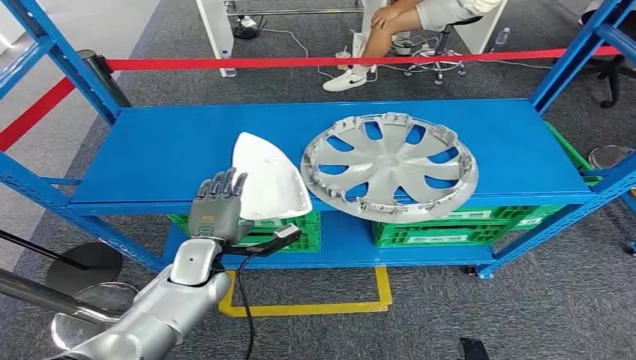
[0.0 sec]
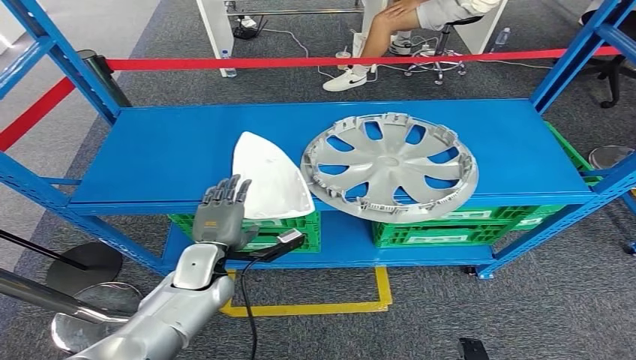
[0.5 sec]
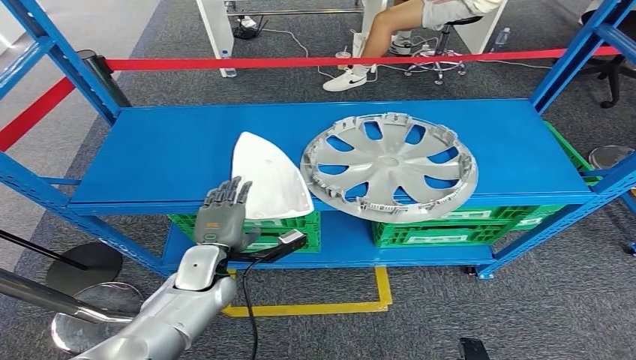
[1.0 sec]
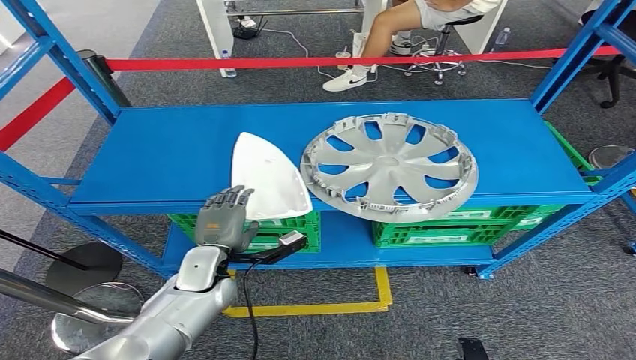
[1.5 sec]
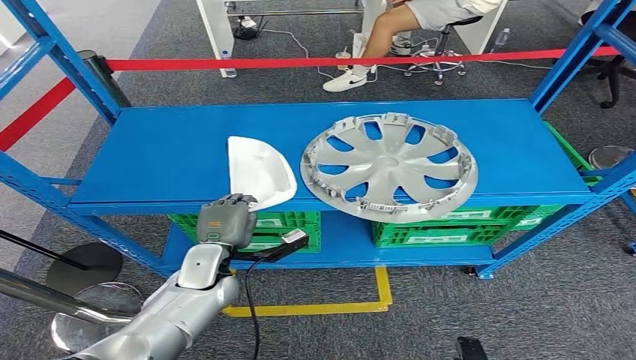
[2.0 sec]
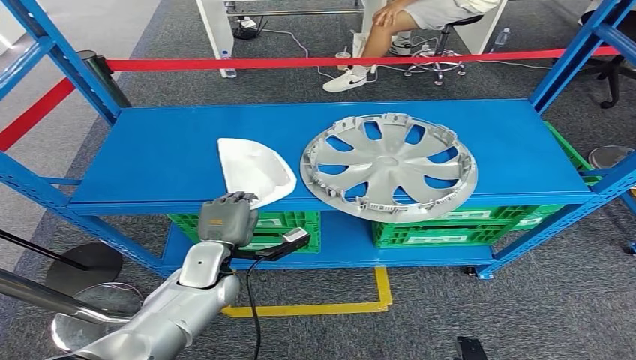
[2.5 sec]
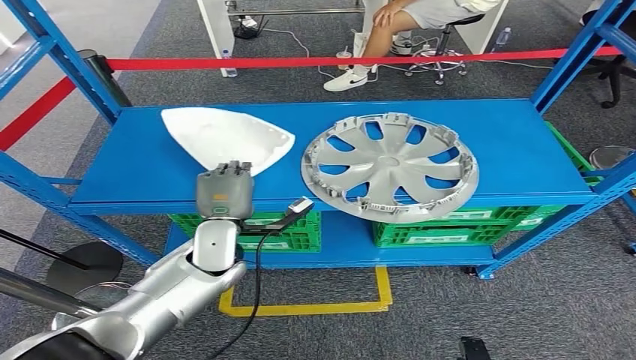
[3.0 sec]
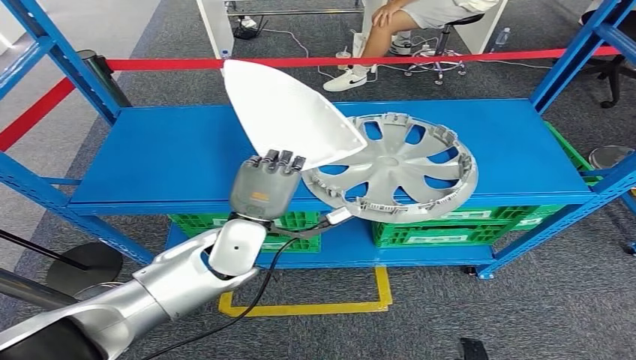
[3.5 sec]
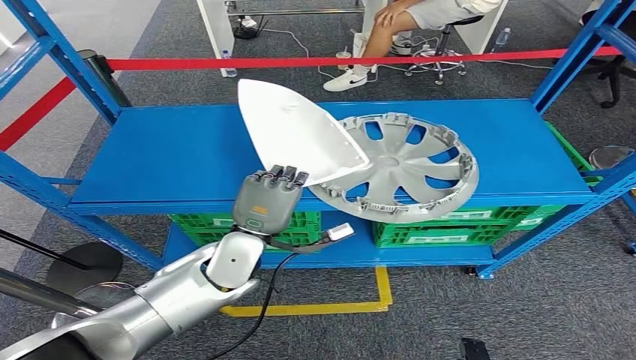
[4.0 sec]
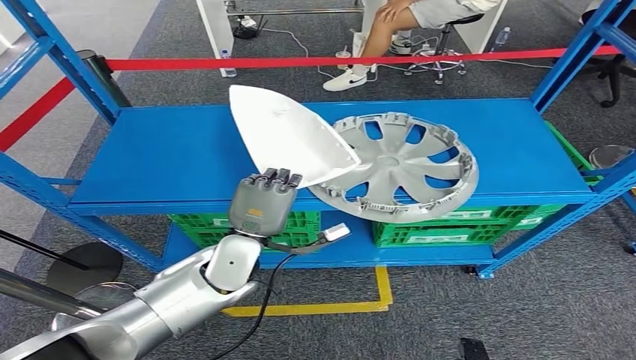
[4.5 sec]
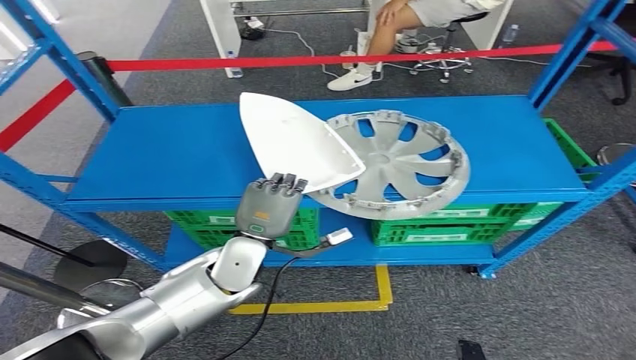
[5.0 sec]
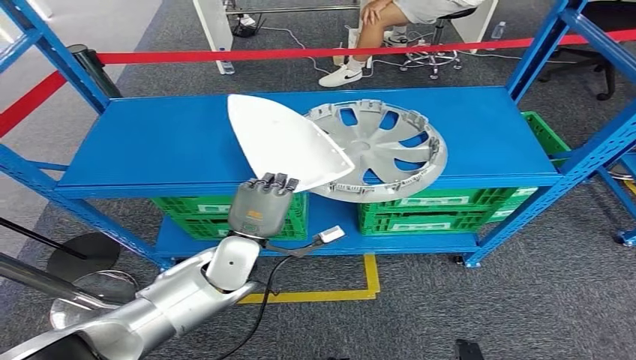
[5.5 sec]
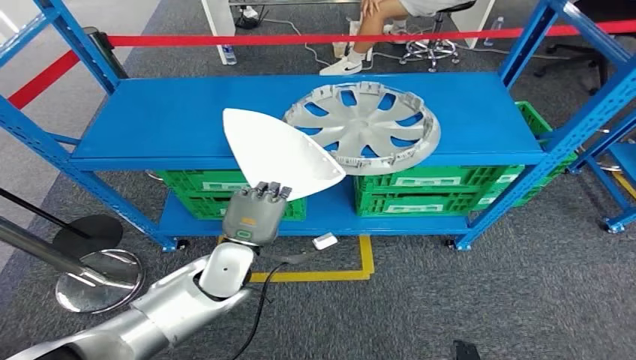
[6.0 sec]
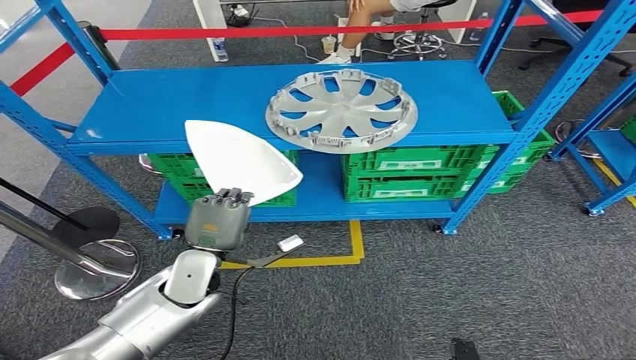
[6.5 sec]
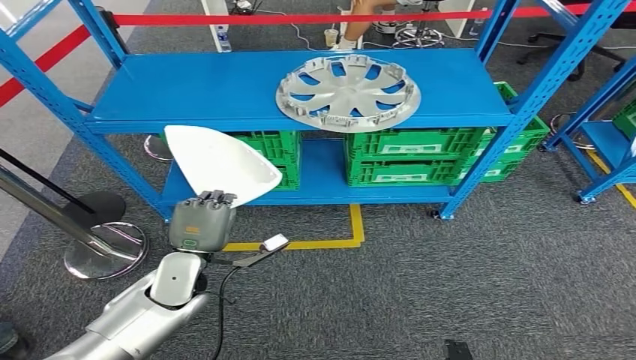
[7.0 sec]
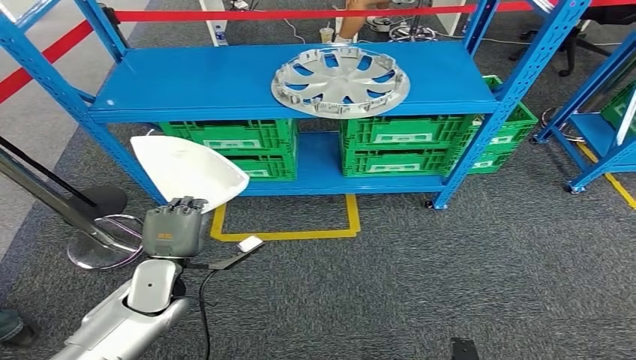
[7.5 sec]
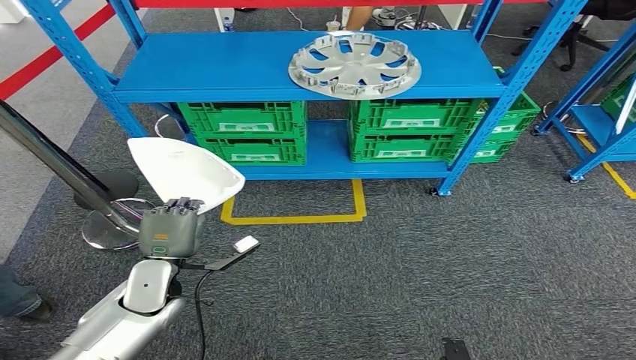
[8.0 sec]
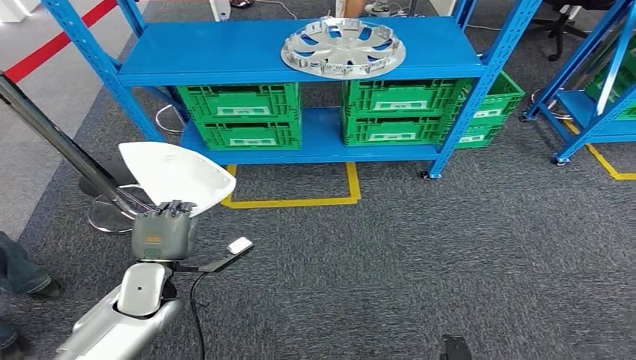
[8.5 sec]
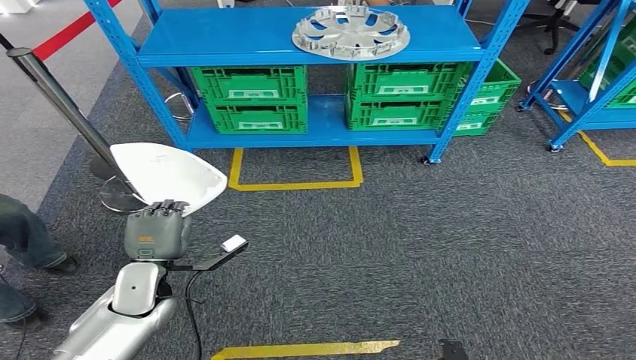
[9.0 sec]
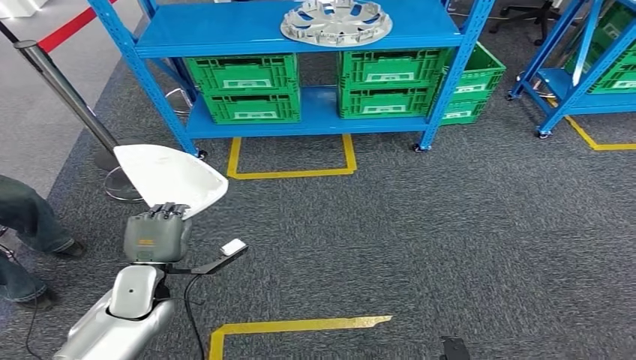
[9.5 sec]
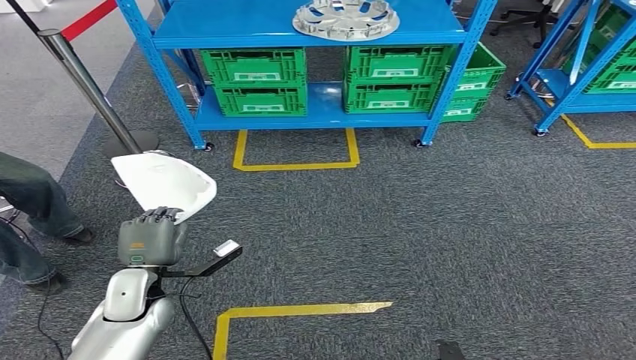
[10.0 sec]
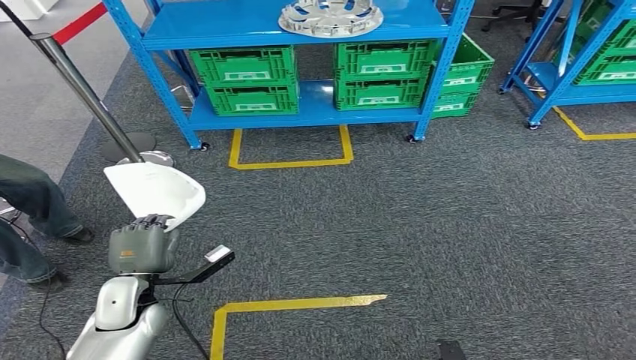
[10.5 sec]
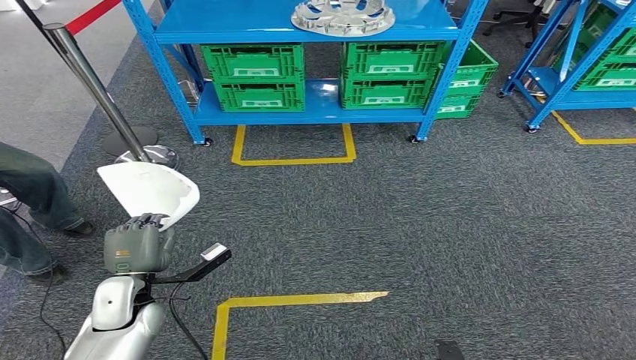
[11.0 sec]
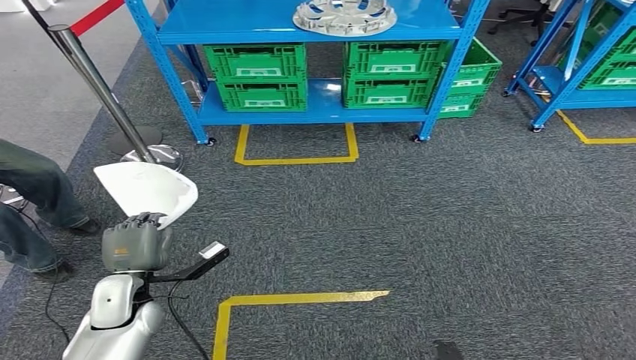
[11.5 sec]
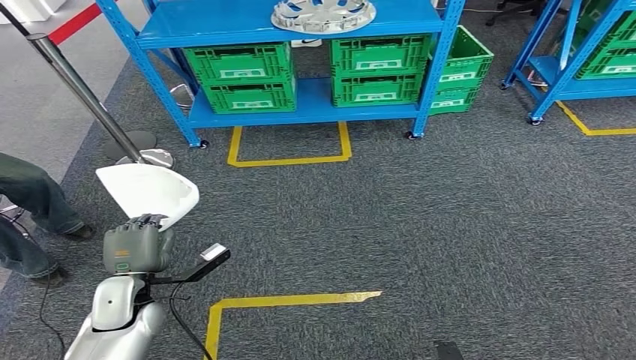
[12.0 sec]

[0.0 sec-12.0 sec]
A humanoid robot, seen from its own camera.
Step, 0.0 sec to 5.0 sec: Pick up the small component from the shelf.
2.0 sec to 4.0 sec: The left hand shifts approximately 10 cm upward and to the right.

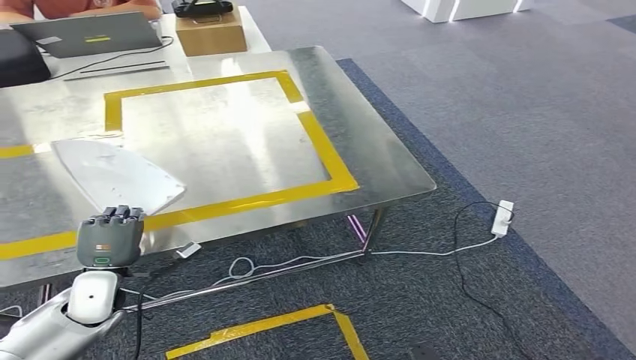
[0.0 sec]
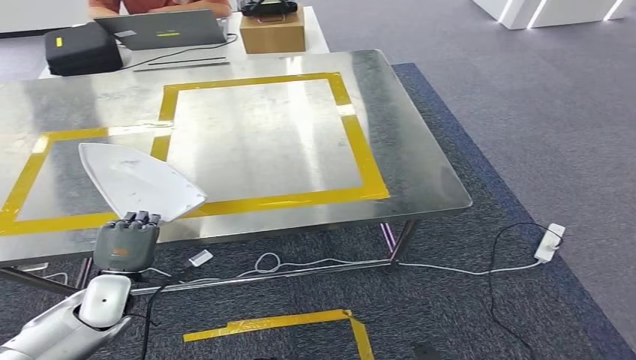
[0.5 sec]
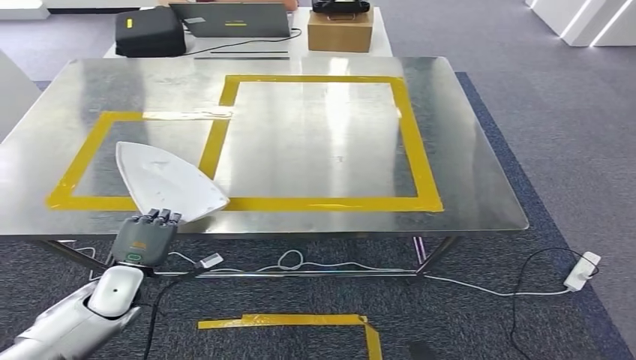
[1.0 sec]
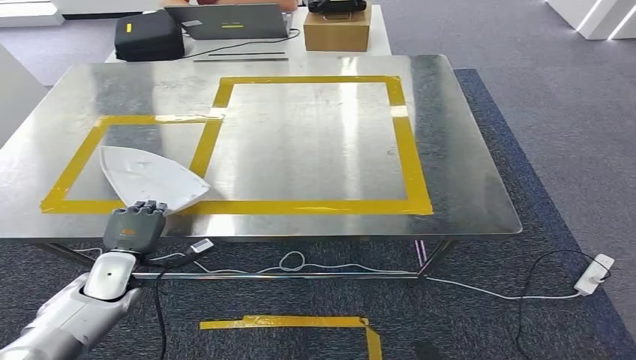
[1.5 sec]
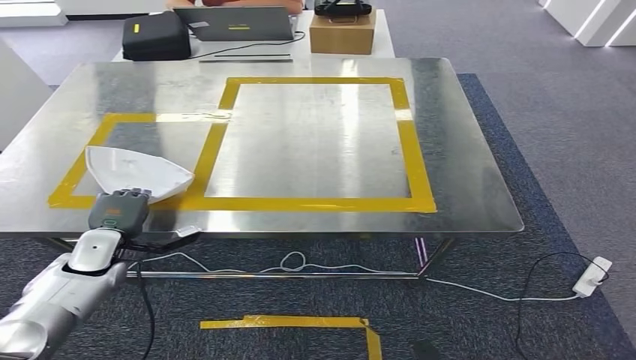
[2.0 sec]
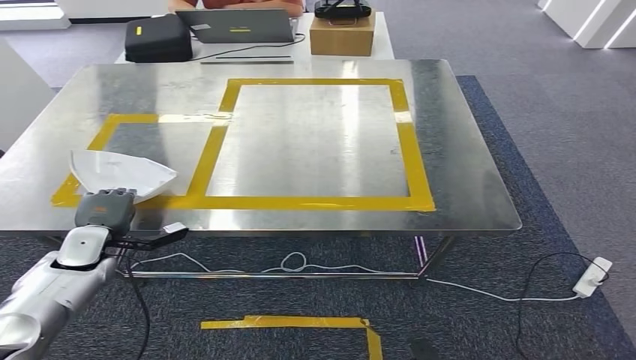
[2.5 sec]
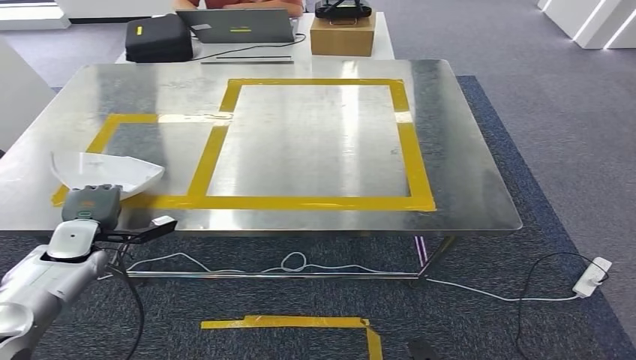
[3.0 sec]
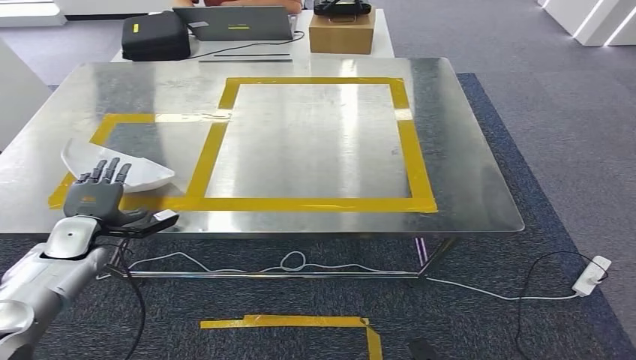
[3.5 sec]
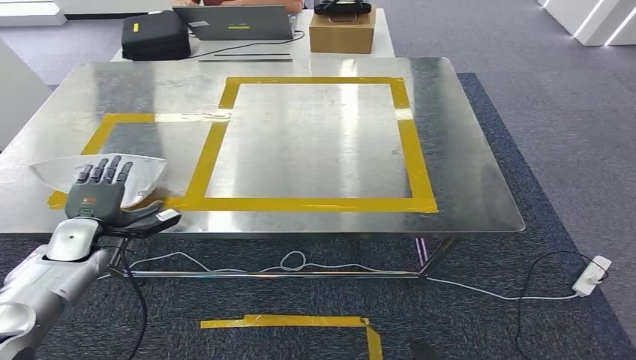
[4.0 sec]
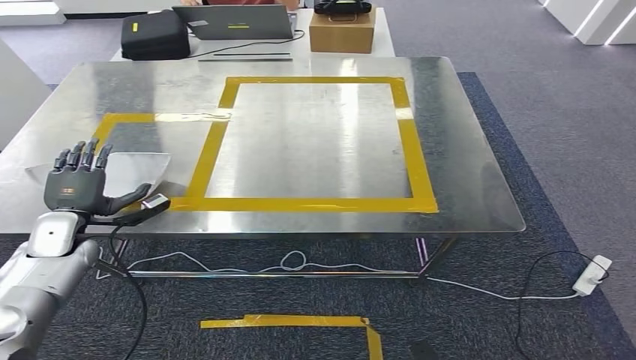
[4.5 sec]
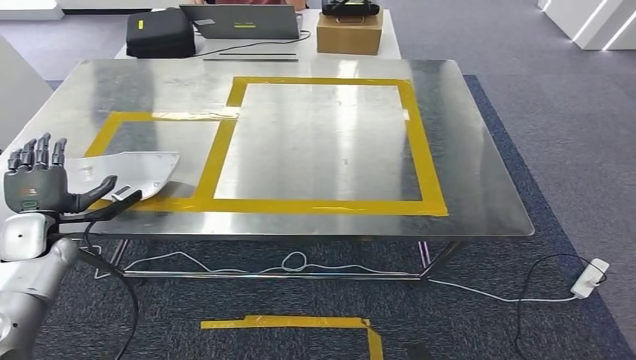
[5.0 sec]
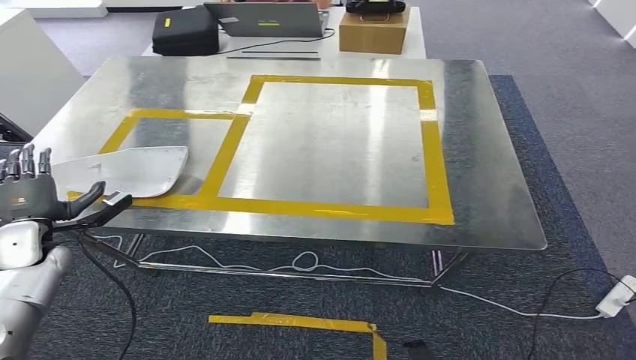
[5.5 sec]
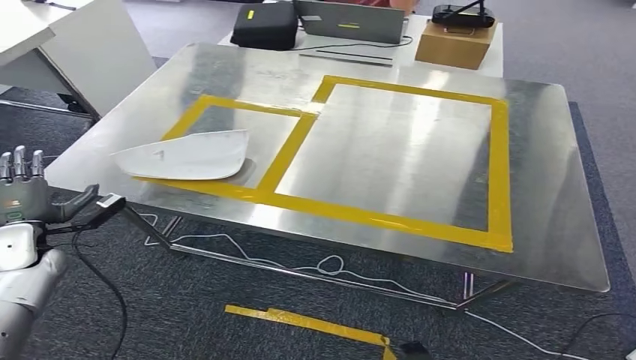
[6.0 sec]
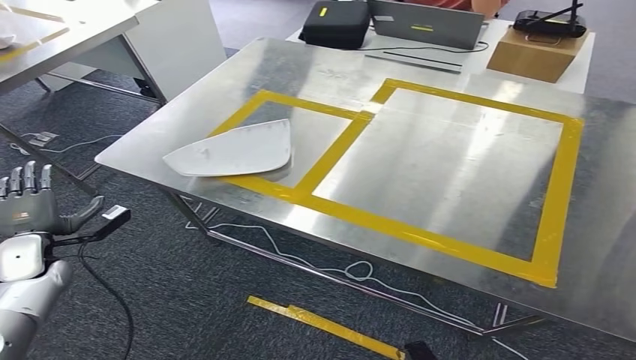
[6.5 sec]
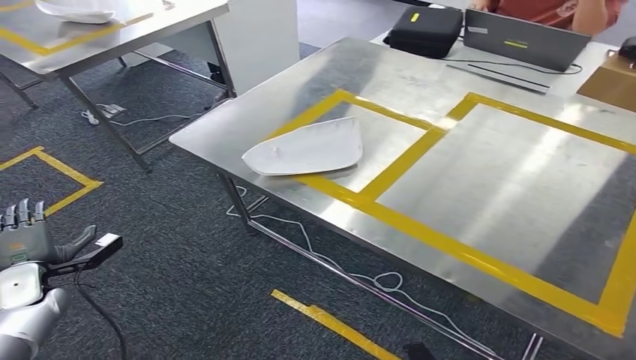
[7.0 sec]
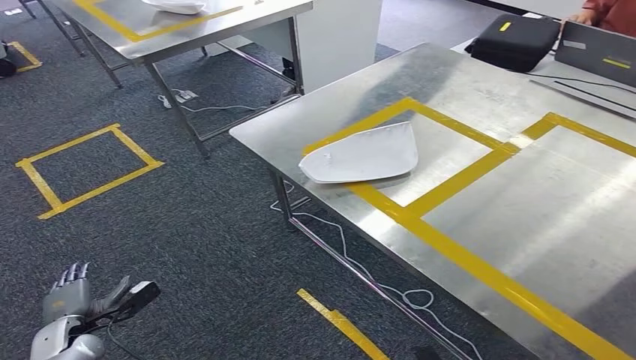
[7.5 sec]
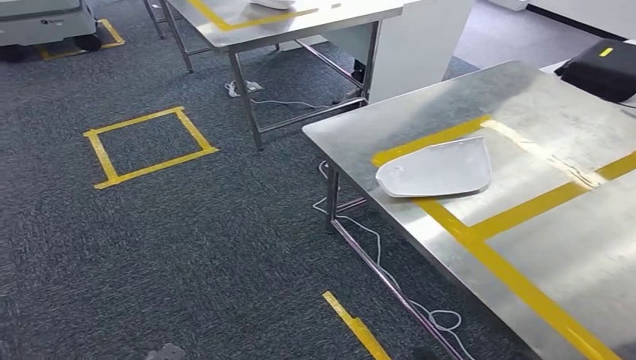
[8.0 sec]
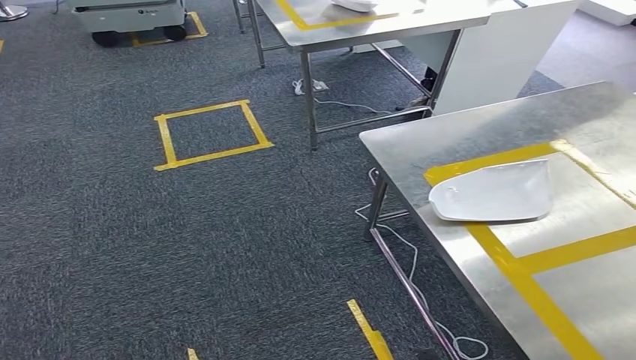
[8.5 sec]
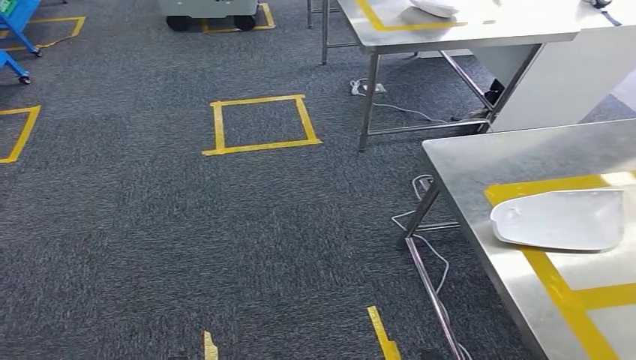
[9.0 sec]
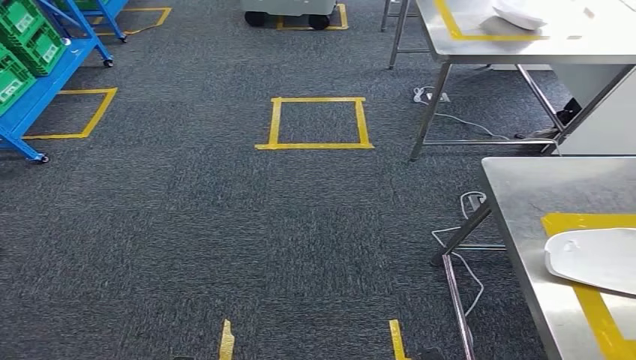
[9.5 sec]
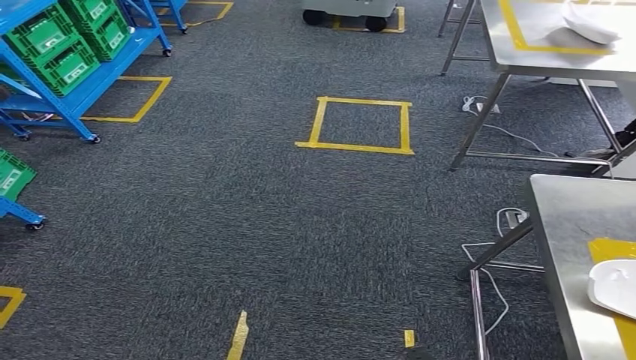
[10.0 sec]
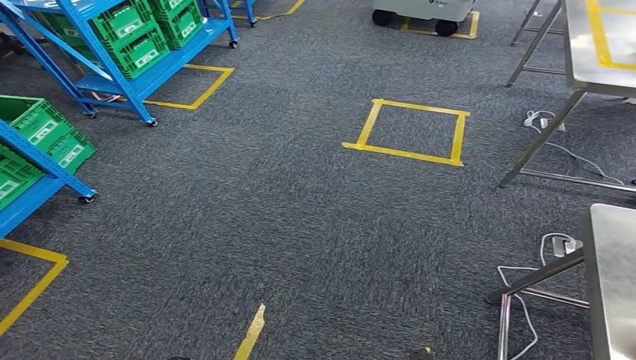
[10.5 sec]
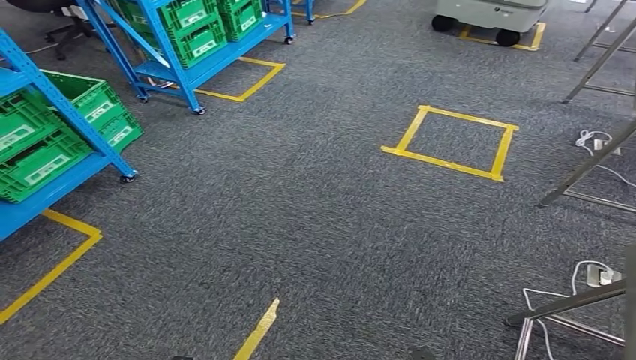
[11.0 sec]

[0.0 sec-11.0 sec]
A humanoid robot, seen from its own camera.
Step, 1.5 sec to 7.5 sec: Insert the small component into the corresponding slot on the workbench.
2.0 sec to 3.5 sec: The left hand shifts by about 5 cm.
